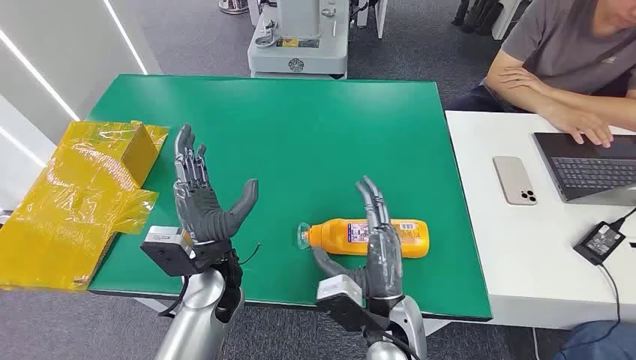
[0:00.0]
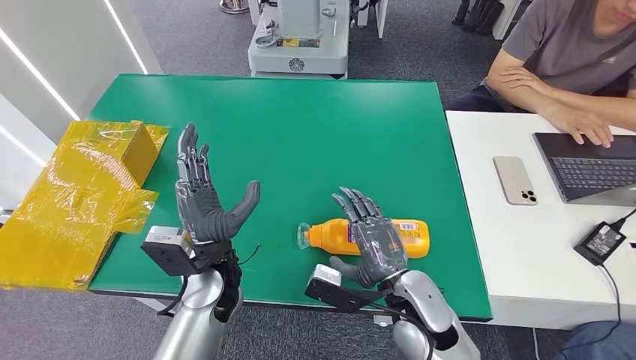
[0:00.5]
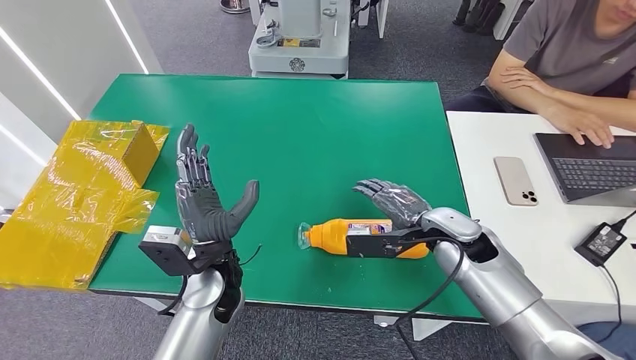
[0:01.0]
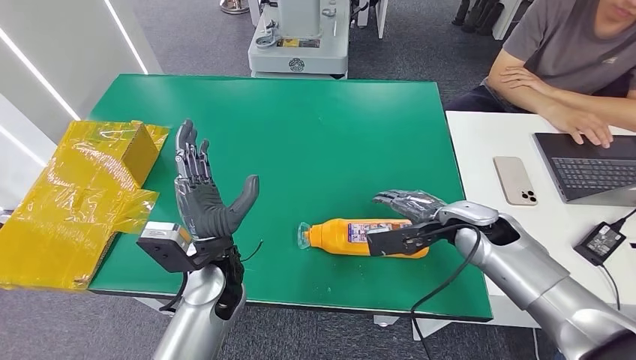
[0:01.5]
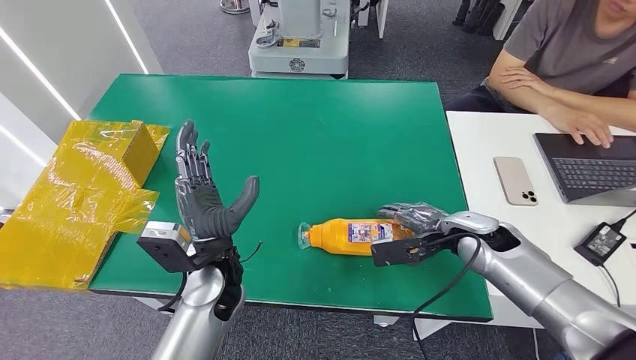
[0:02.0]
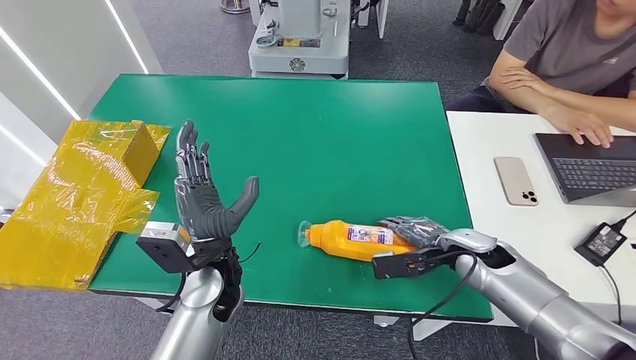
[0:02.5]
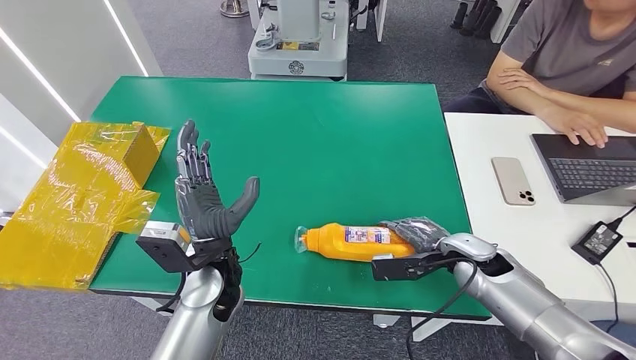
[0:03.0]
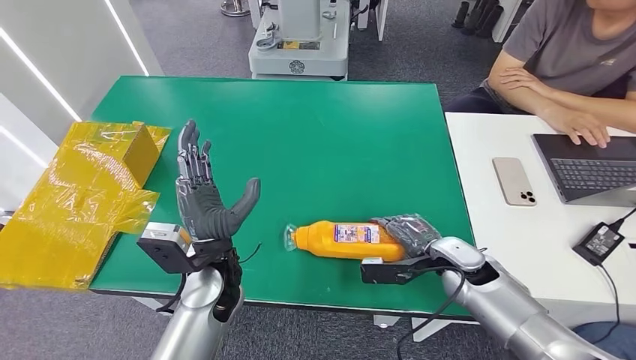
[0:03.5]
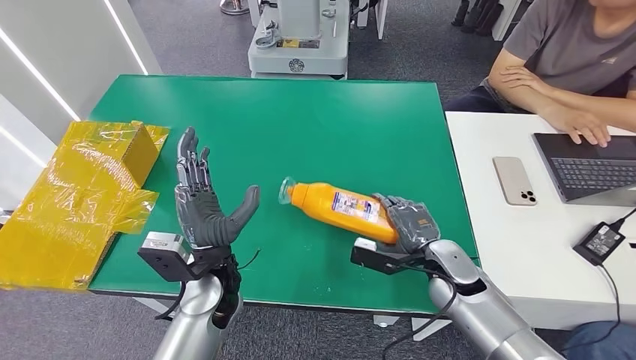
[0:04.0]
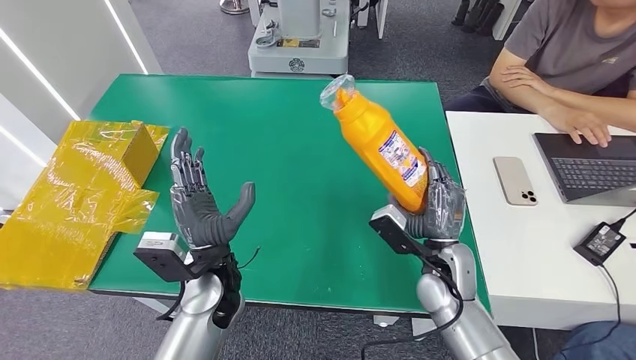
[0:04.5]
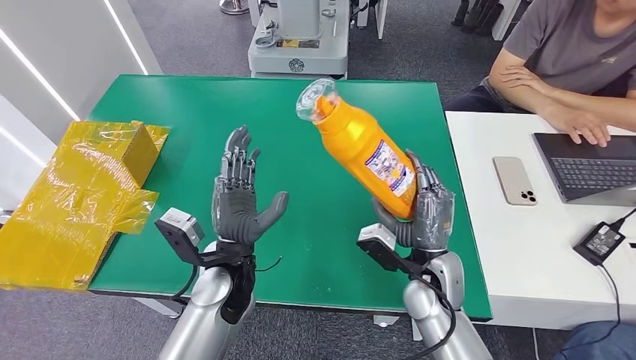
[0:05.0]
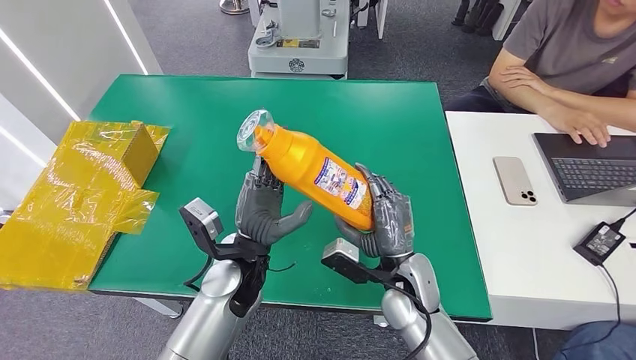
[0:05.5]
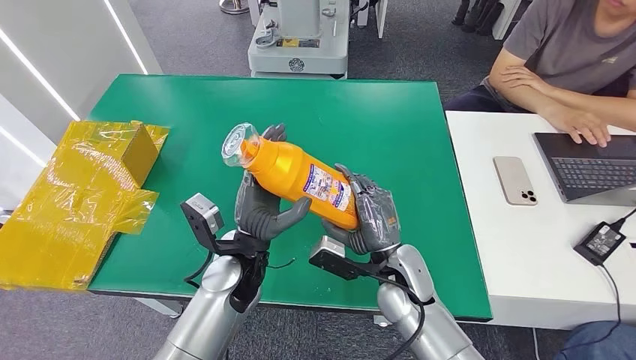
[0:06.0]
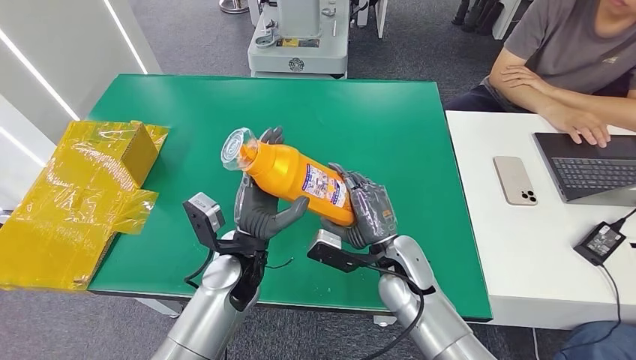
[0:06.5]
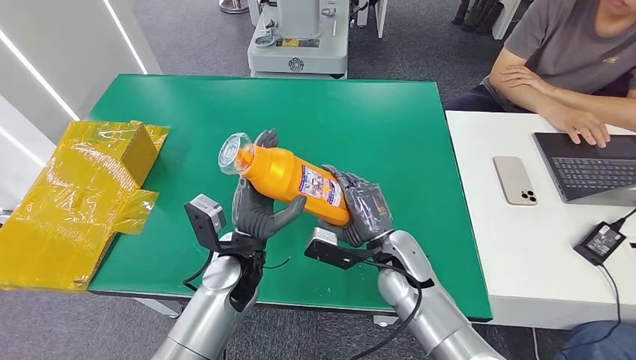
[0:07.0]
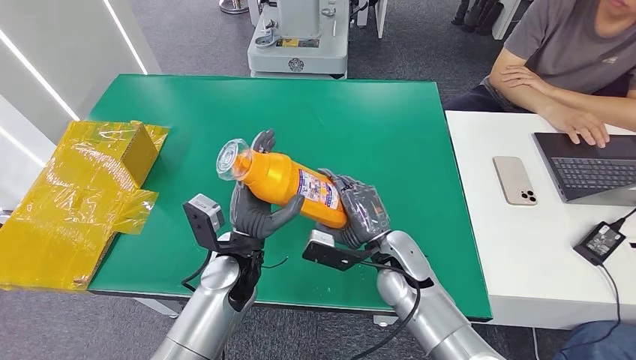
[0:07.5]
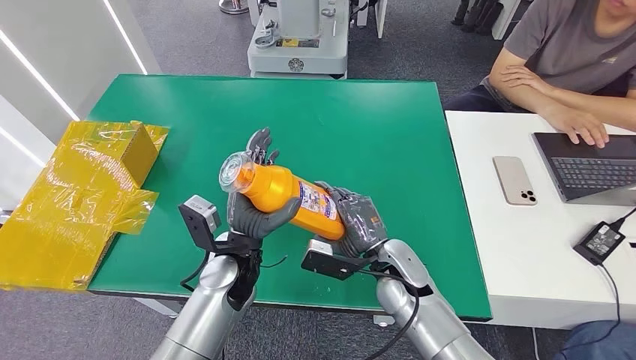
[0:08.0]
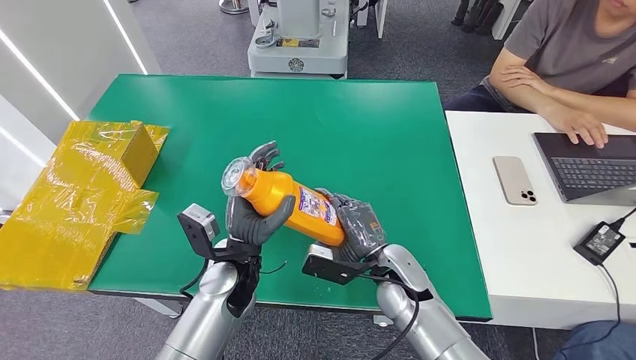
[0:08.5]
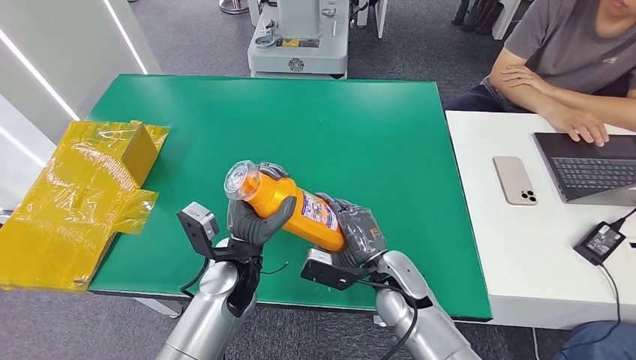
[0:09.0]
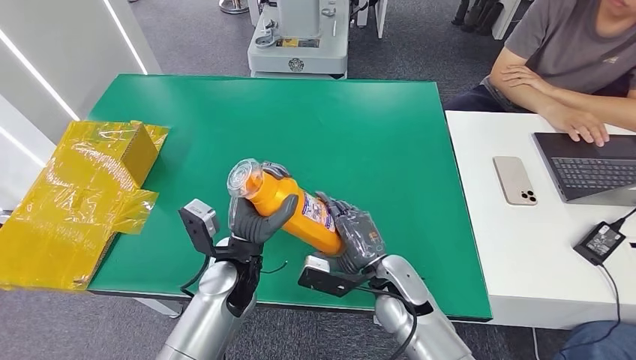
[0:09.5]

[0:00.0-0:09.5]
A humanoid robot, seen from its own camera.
Step, 0:00.0 to 0:04.5: Pick up the bottle from the table.
0:02.0 to 0:04.0: The right hand goes about 10 cm downward and to the left.
0:04.0 to 0:05.5: The right hand goes approximately 10 cm to the left.
0:07.5 to 0:09.5: The hands make only small movements.

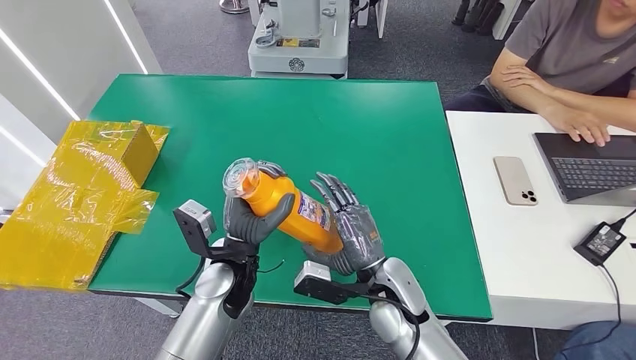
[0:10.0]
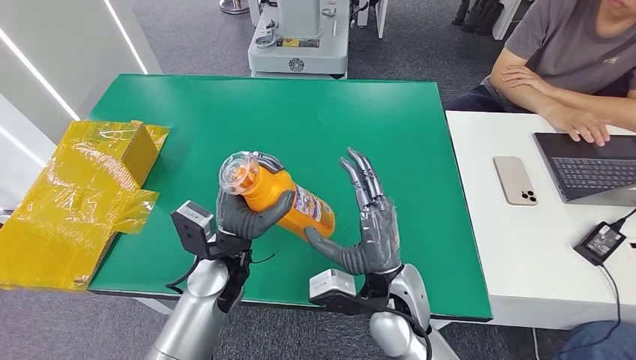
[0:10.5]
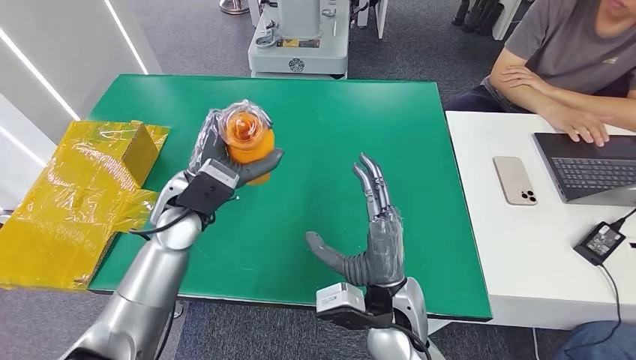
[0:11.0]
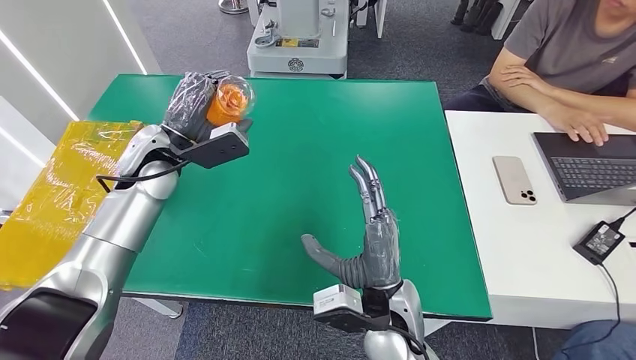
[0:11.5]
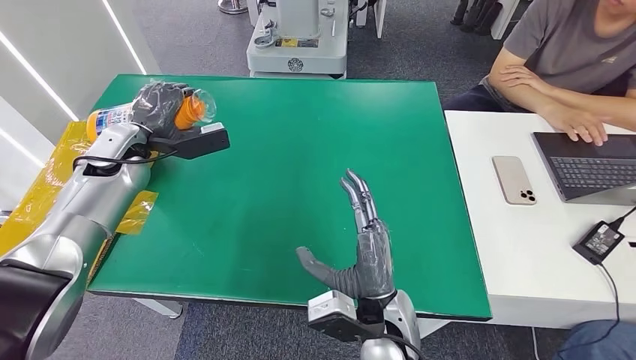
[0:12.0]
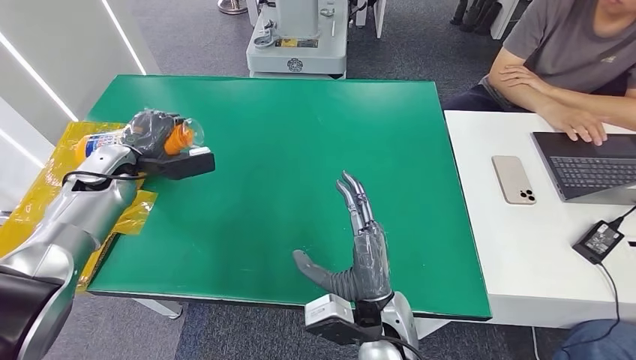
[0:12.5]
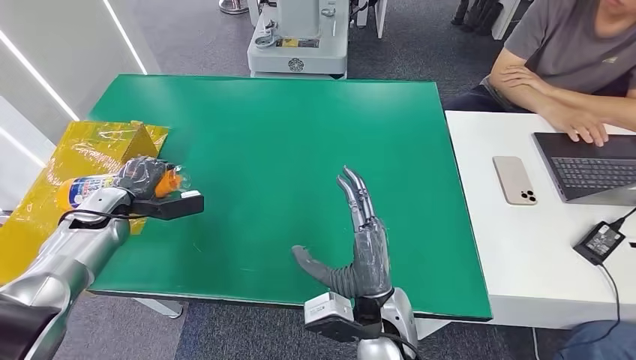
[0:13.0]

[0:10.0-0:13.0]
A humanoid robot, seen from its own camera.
Step, 0:10.0 to 0:12.5: Turn the bottle to the front side.
0:11.5 to 0:13.0: The left hand goes roughly 20 cm to the left and downward.

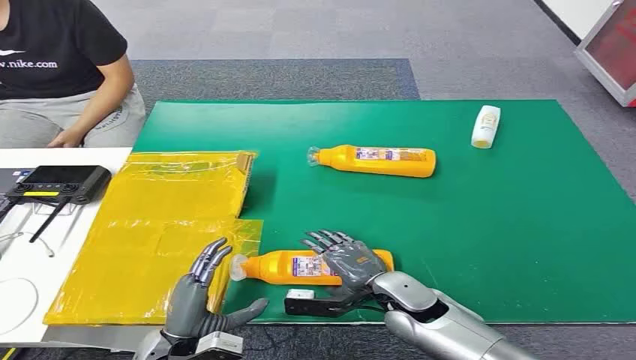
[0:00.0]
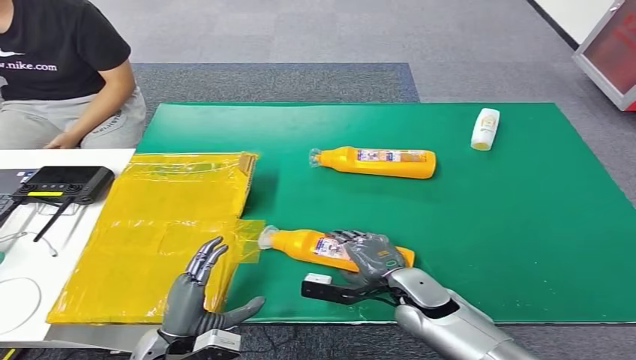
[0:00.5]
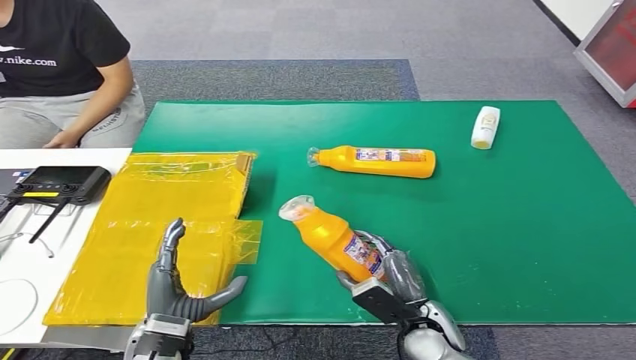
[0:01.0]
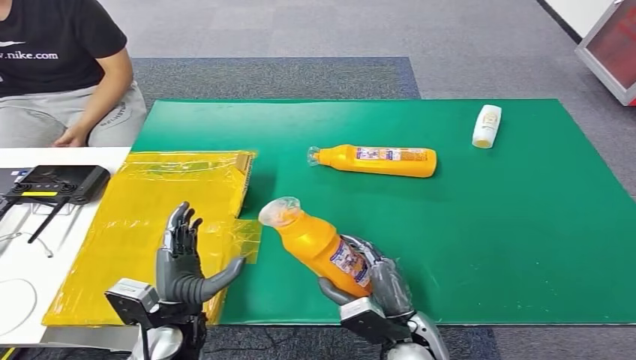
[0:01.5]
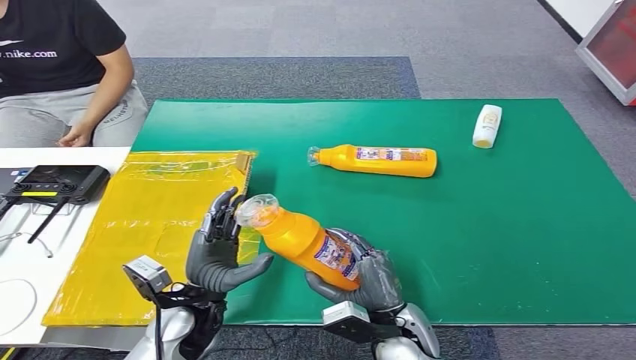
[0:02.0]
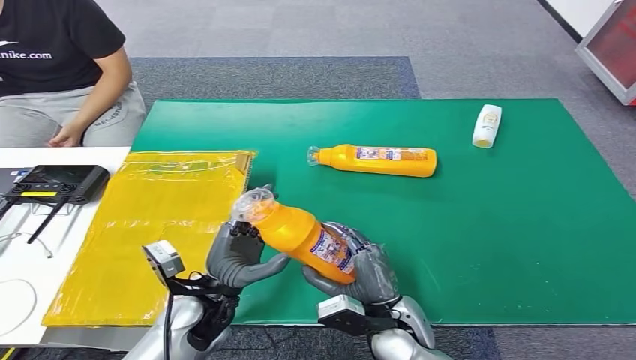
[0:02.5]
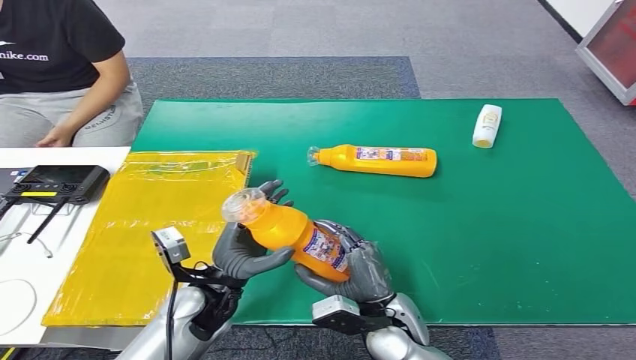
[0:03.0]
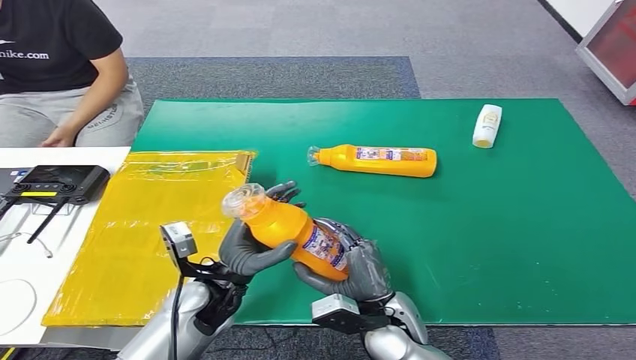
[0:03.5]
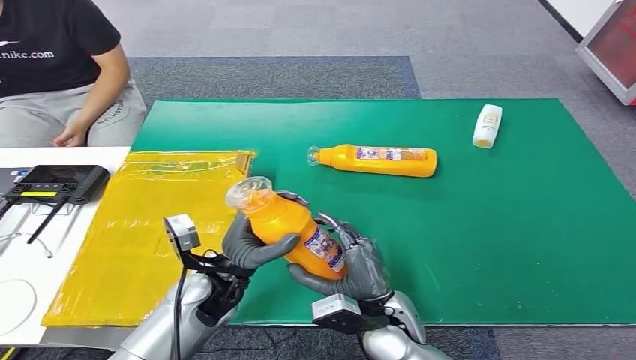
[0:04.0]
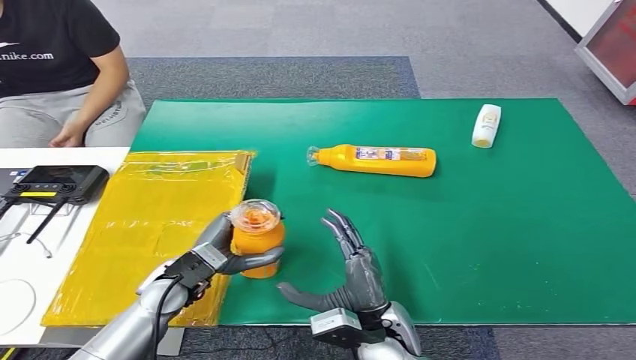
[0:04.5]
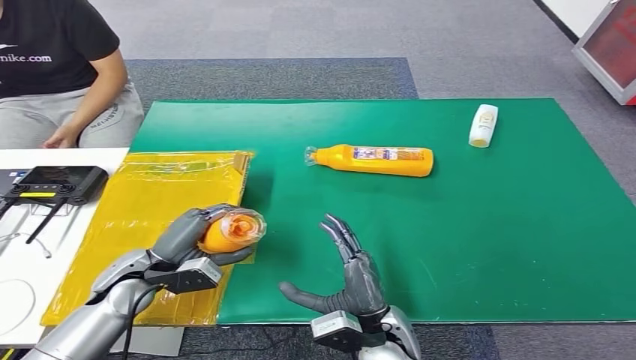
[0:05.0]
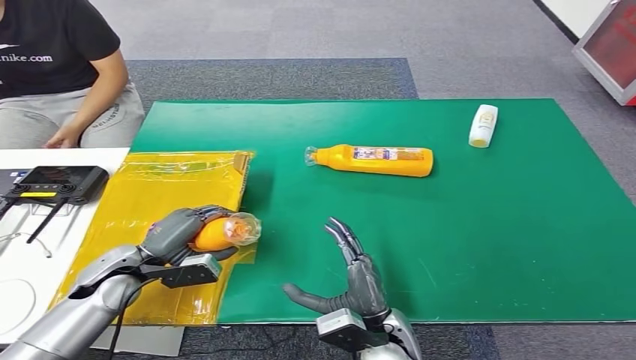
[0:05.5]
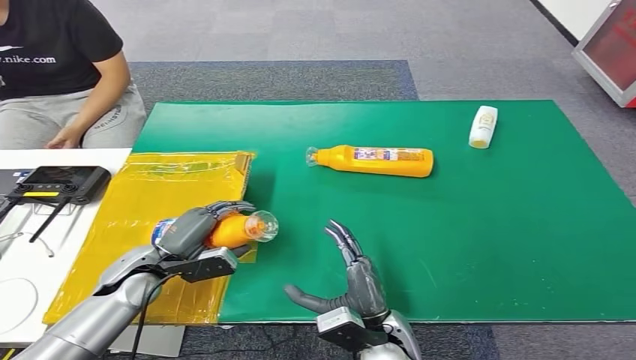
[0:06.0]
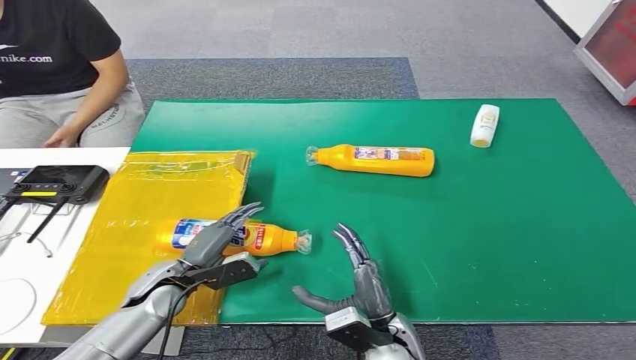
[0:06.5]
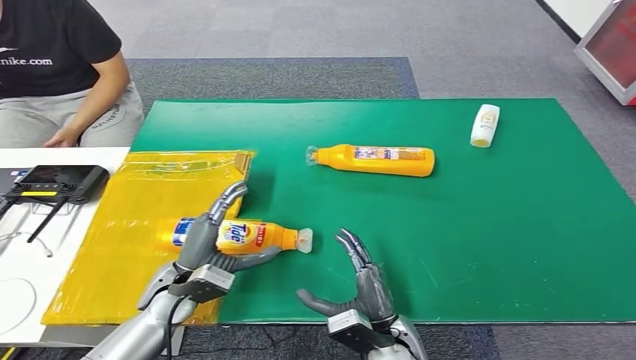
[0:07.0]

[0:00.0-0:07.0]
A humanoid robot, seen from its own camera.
Step, 0:00.0 to 0:01.0: Pick up the bottle from the table.
Step, 0:02.0 to 0:07.0: Turn the bottle to the front side.
0:02.0 to 0:03.5: The hands make only small movements.
0:03.5 to 0:05.0: The left hand heads to the left, covering approximately 10 cm.
0:05.0 to 0:07.0: The left hand is displaced to the right by about 5 cm. Meanwhile the right hand changes place by some 5 cm.
